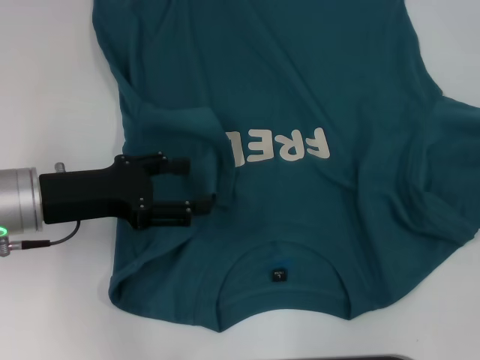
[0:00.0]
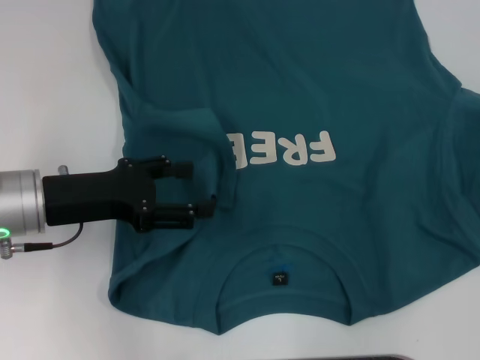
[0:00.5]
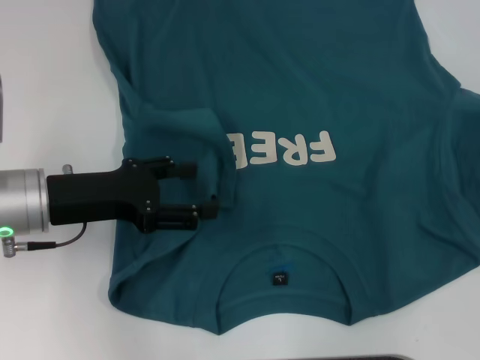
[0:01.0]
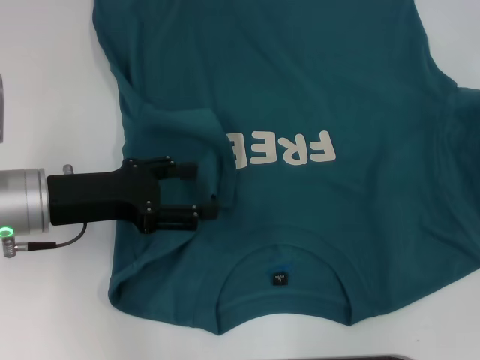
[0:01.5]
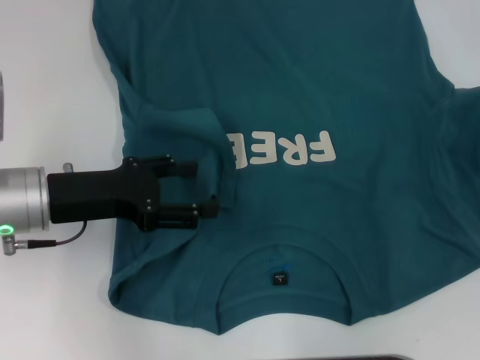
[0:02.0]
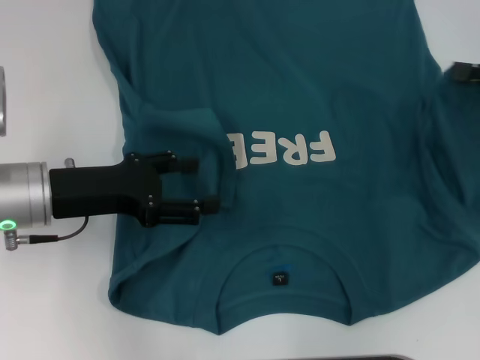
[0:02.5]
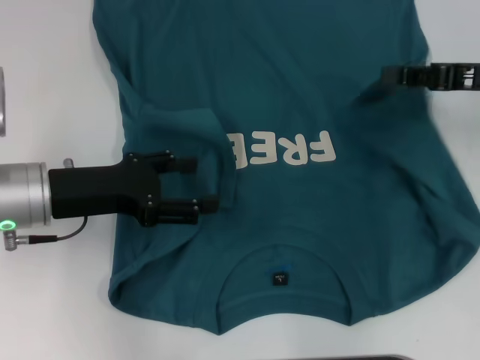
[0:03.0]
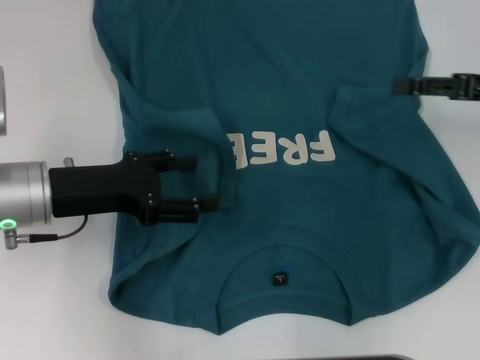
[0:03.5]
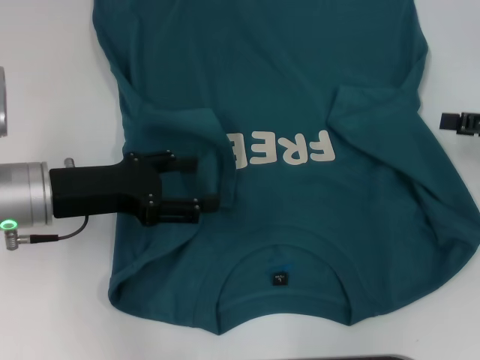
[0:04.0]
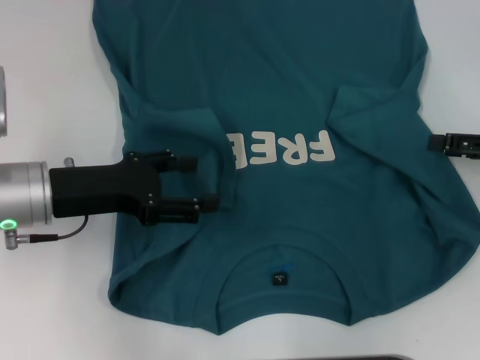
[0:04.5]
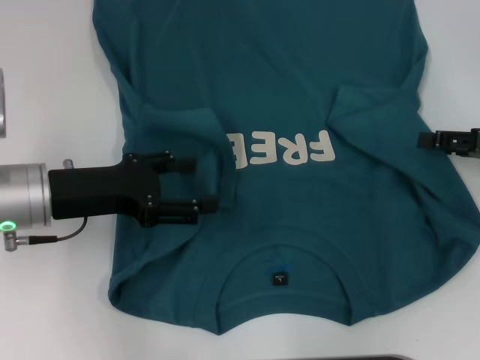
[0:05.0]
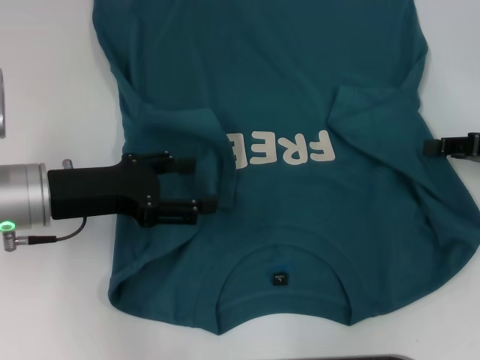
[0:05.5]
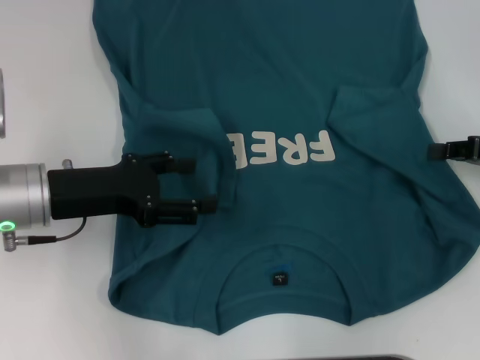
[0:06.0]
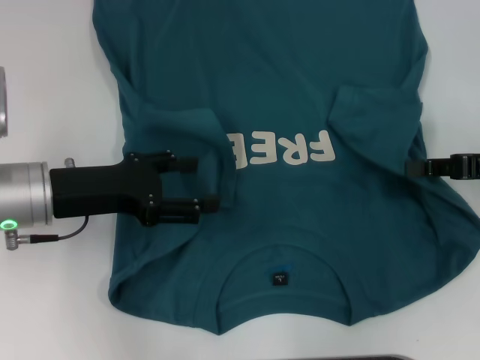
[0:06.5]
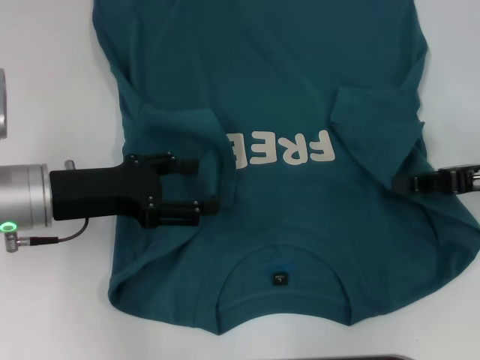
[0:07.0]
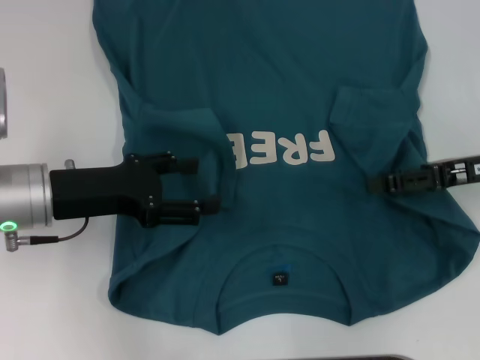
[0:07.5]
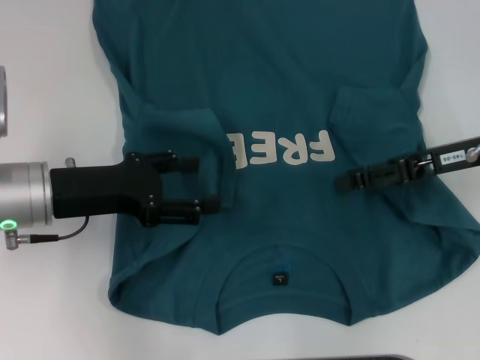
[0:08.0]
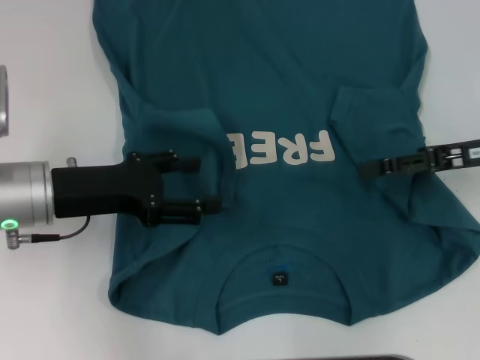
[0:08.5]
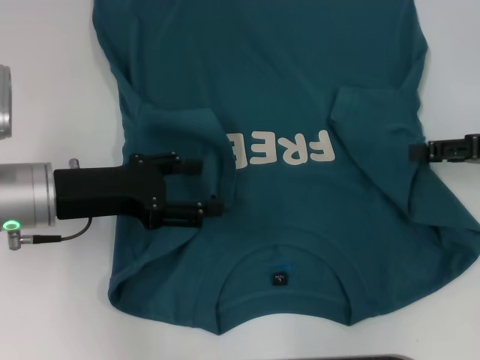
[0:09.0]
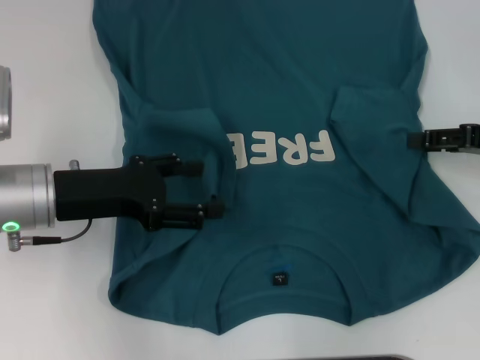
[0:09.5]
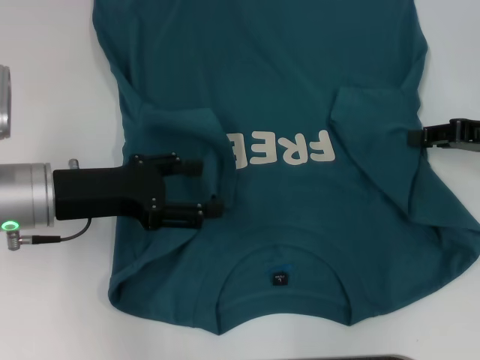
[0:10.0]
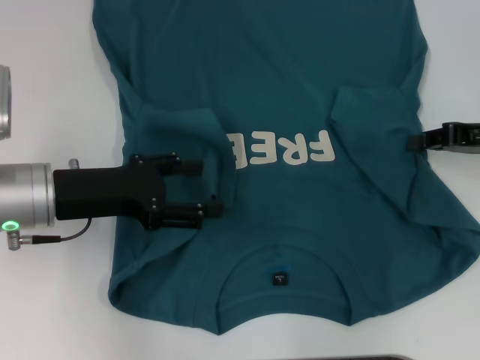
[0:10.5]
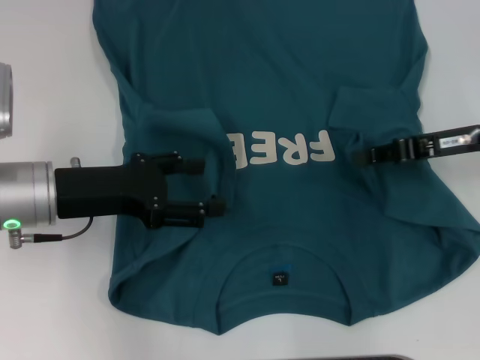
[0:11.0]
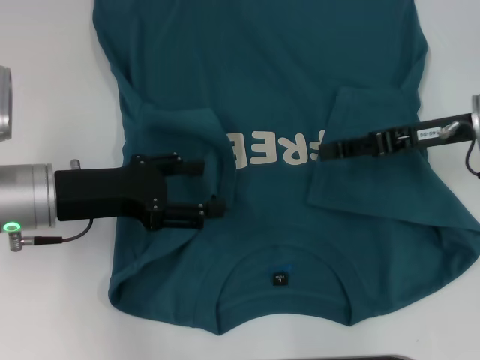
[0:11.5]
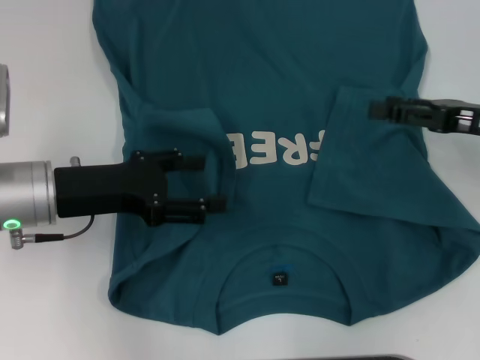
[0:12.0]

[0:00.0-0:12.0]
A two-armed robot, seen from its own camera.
Step, 0:00.0 to 0:03.0: Fold the bottom right sleeve to the right.
0:00.0 to 0:02.0: The grippers stay close to where they were, moving slightly.
0:02.0 to 0:04.0: The right gripper opens.
0:04.0 to 0:06.0: The right gripper closes.
0:06.0 to 0:08.0: The right gripper heads to the left, covering approximately 10 cm, and opens up.
0:08.0 to 0:10.0: The right gripper heads to the right, covering roughly 5 cm.
0:10.0 to 0:12.0: The right gripper moves approximately 10 cm to the left and comes back, and closes, then opens again.

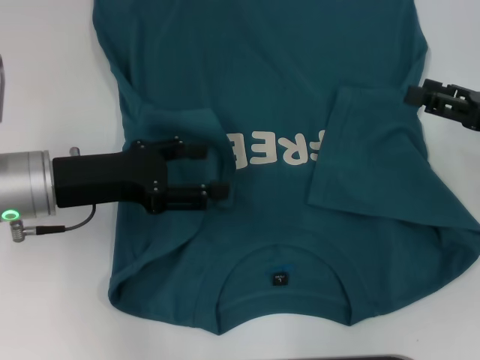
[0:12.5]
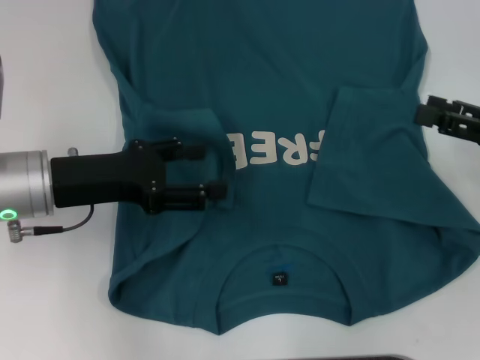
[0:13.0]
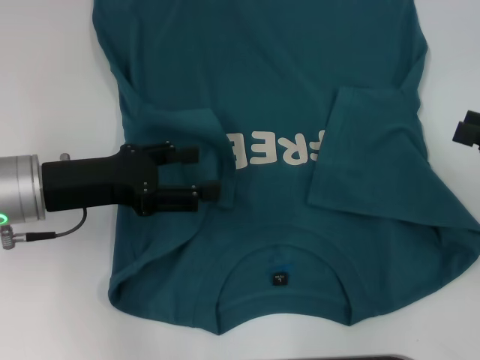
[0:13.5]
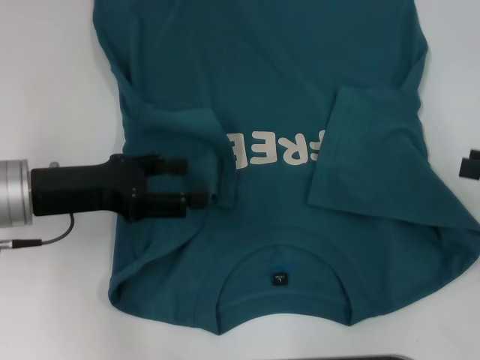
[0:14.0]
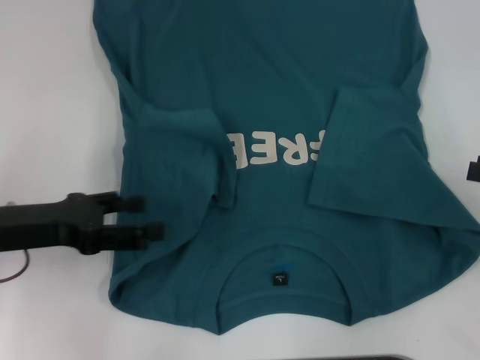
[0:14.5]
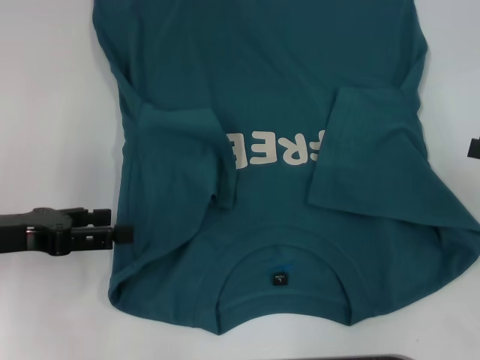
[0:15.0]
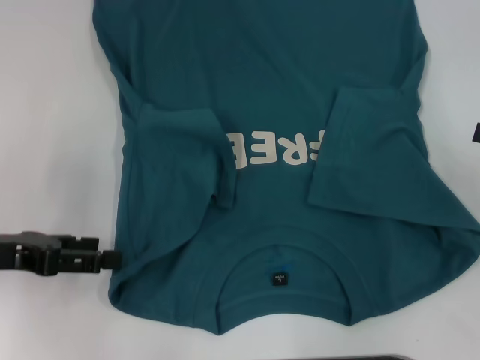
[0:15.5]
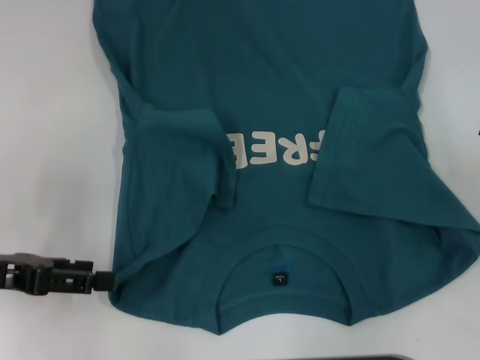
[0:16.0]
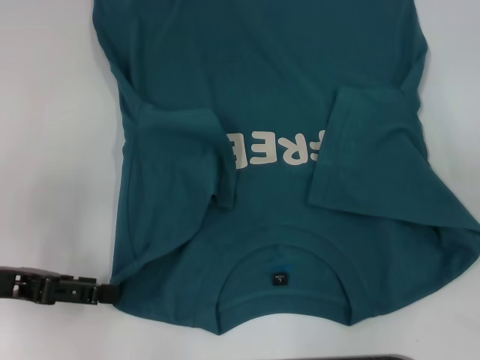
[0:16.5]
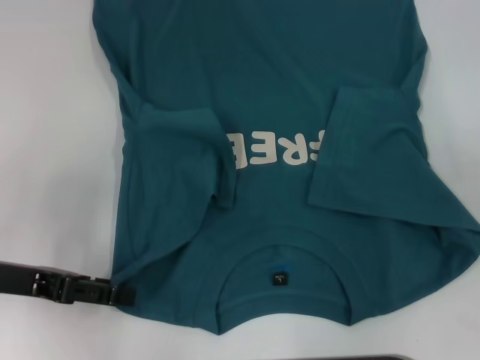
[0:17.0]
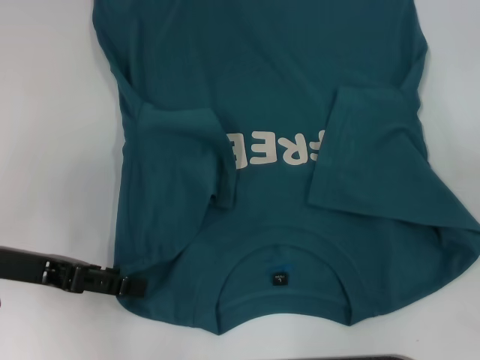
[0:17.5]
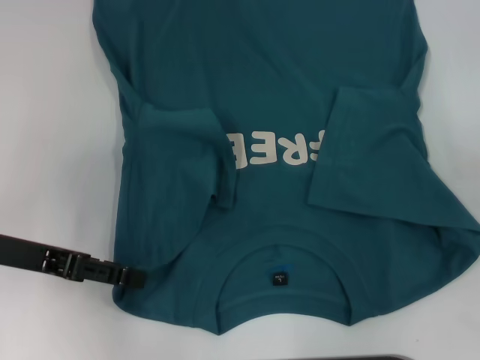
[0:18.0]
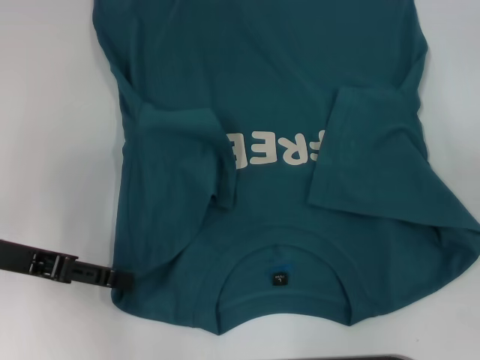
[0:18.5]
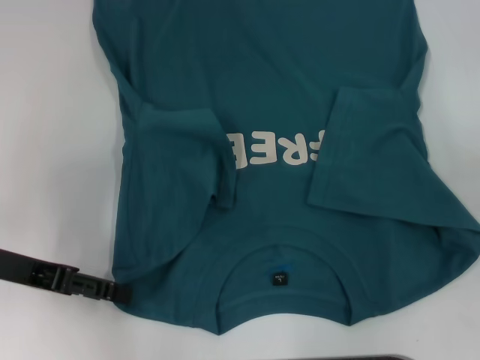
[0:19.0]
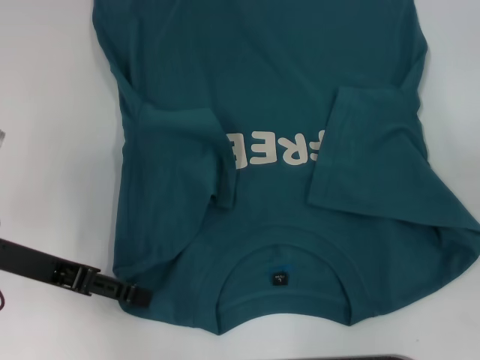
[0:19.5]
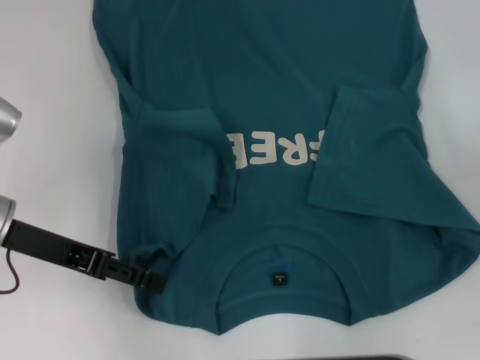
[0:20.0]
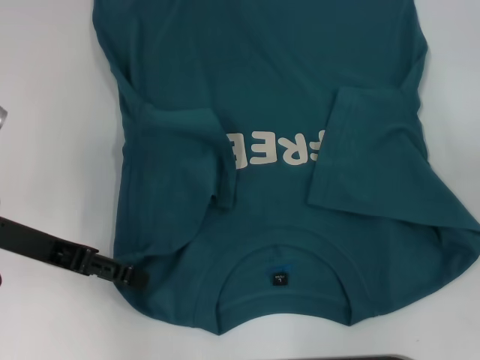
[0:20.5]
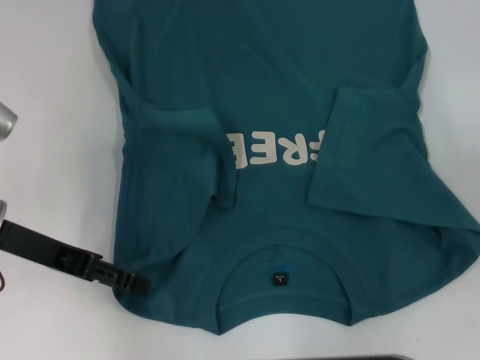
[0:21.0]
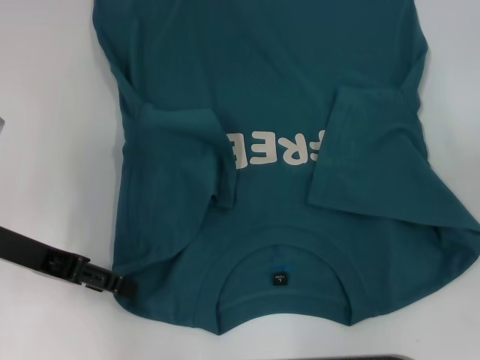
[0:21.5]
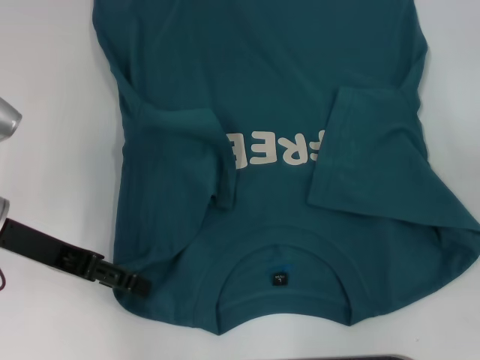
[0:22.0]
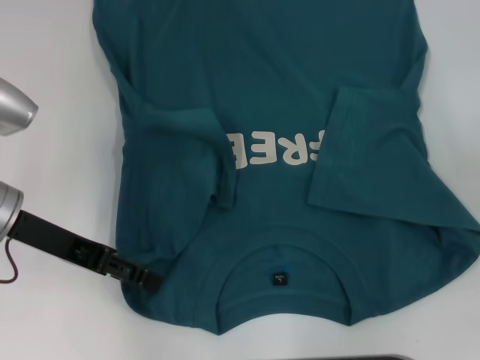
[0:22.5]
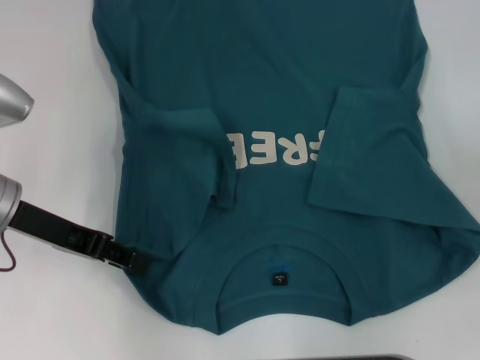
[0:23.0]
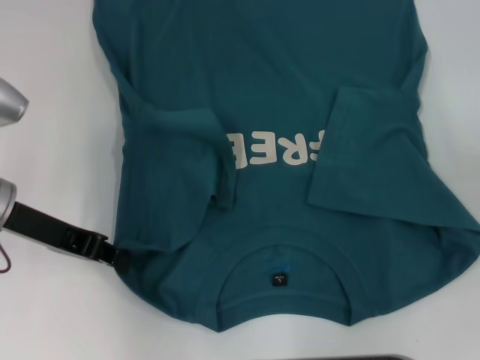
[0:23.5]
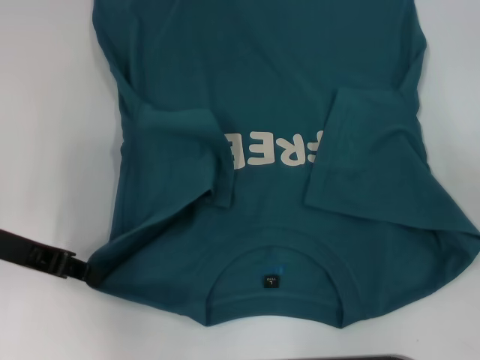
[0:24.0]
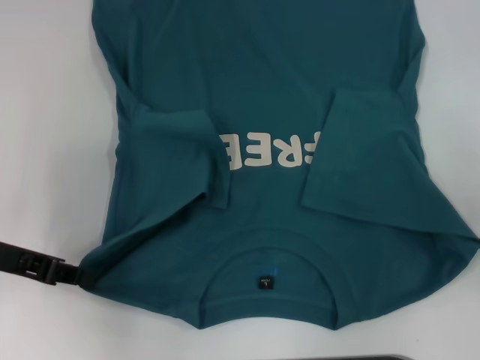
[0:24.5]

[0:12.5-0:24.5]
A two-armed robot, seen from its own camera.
Step, 0:12.5 to 0:24.0: Grab the bottom left corner with your left hand.
0:12.5 to 0:14.5: The right gripper shifts about 10 cm backward and to the right, while the left gripper shifts roughly 5 cm to the left.
0:16.5 to 0:18.5: The grippers make only small movements.
0:18.5 to 0:22.5: The grippers move only a little.
0:22.5 to 0:24.5: The left gripper heads to the left, covering about 5 cm, and closes, while the right gripper changes place by approximately 5 cm.

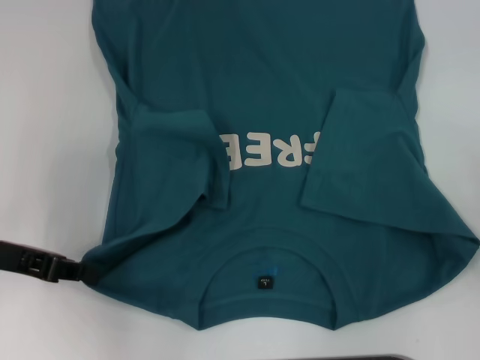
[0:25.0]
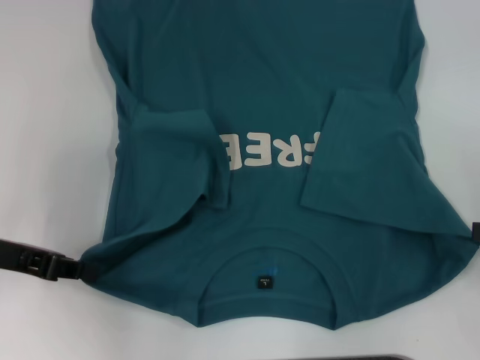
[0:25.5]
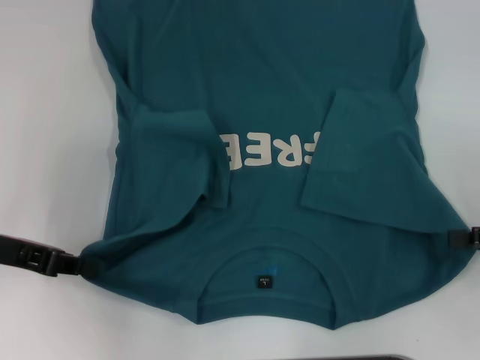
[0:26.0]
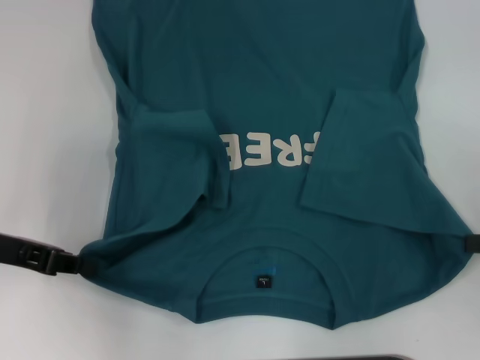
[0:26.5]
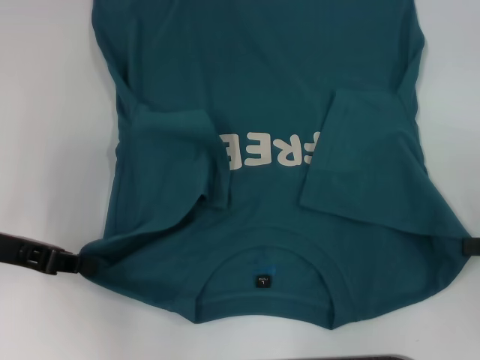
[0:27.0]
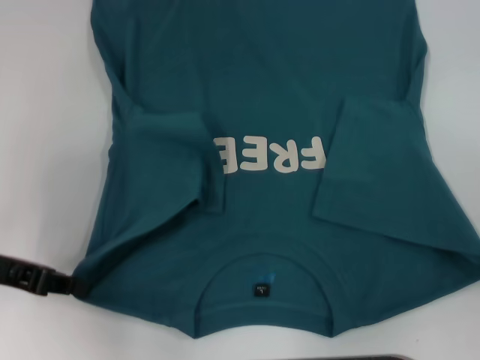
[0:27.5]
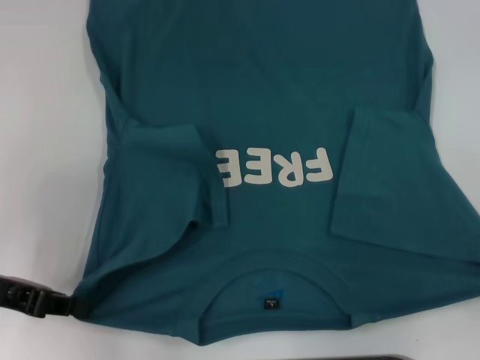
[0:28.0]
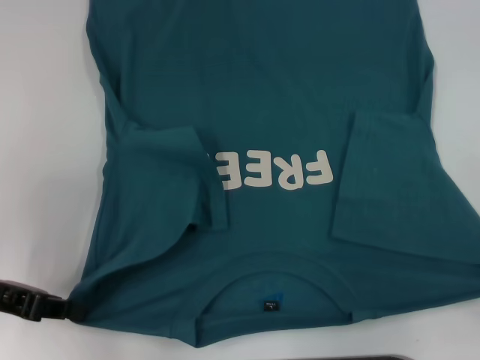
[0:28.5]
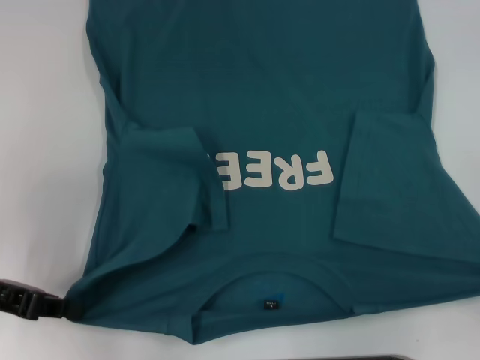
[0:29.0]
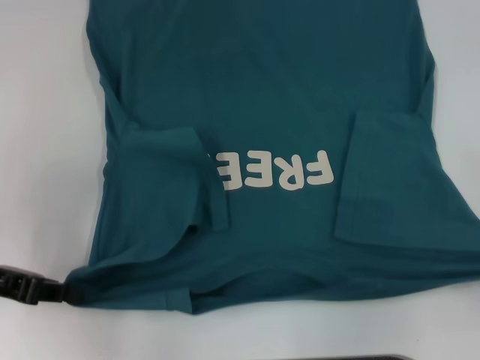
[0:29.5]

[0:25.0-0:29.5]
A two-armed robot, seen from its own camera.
Step, 0:25.0 to 0:26.5: Grab the bottom right corner with your right hand.
0:25.0 to 0:27.0: The right gripper closes its fingers.
0:27.0 to 0:29.5: The right gripper is displaced backward by some 5 cm.
